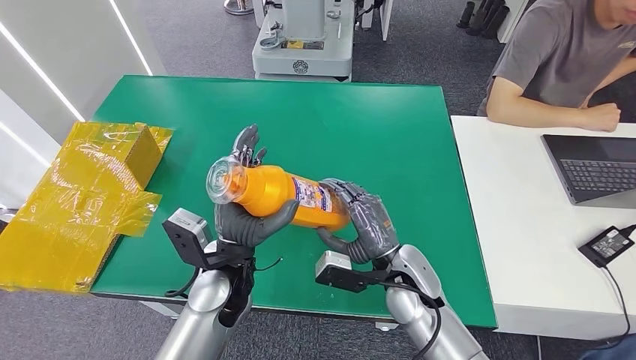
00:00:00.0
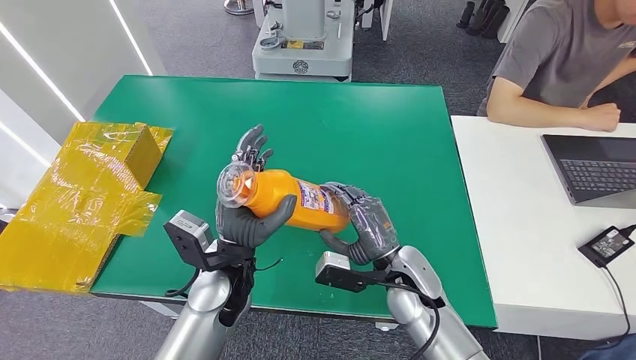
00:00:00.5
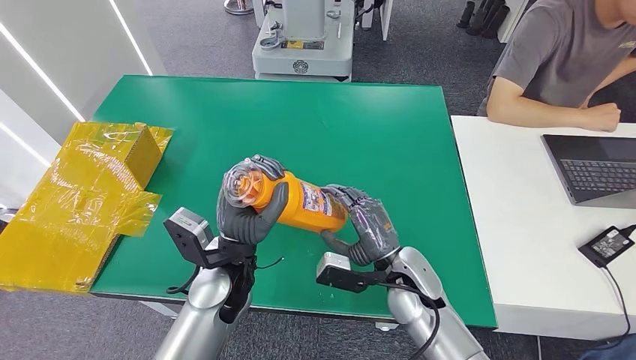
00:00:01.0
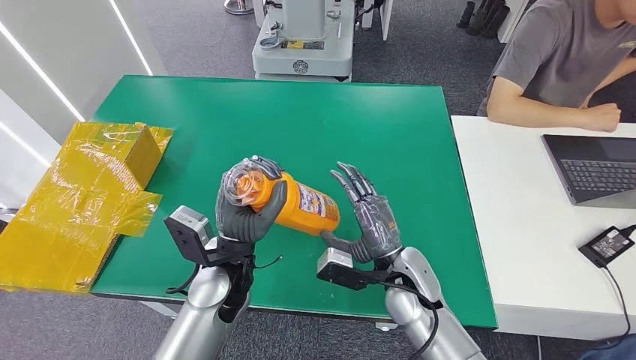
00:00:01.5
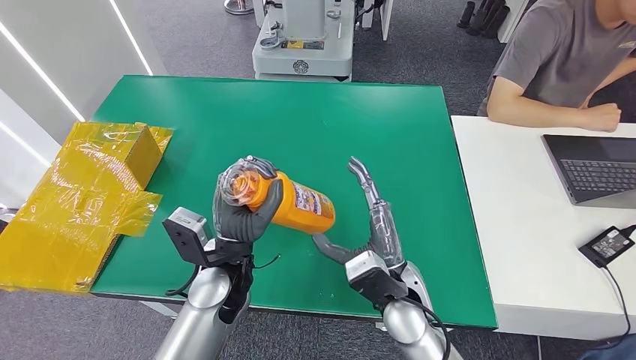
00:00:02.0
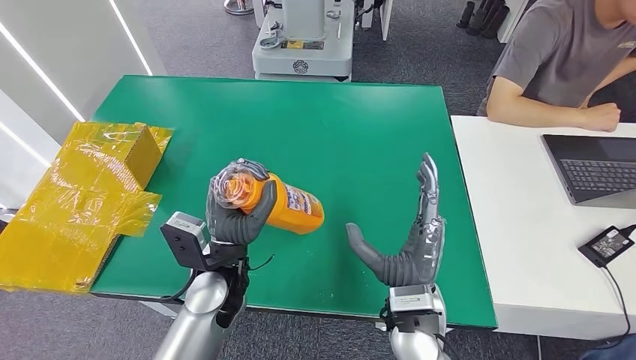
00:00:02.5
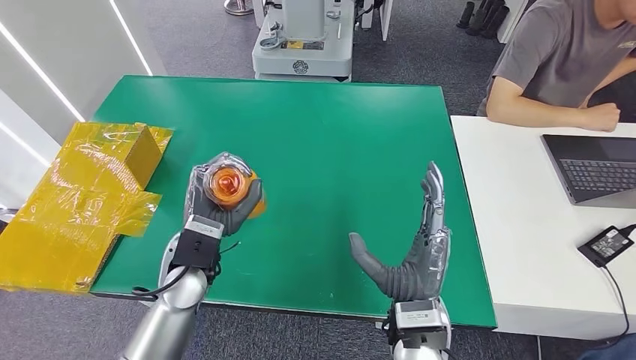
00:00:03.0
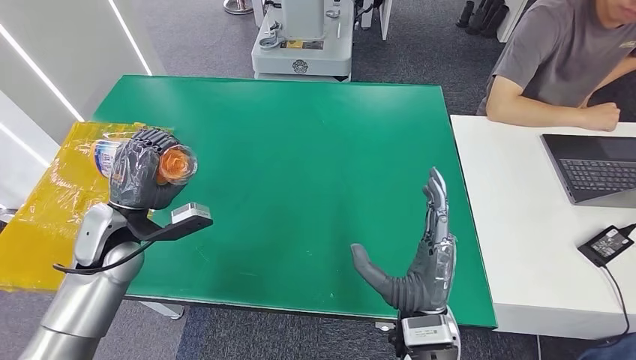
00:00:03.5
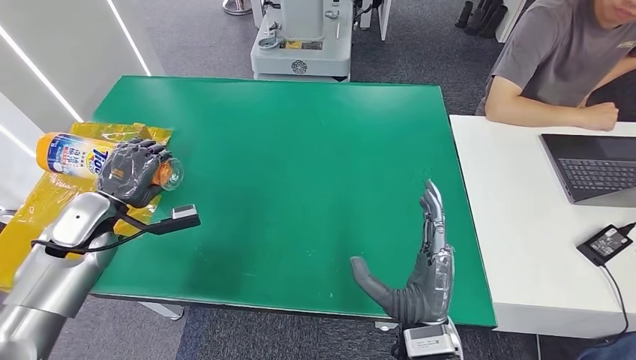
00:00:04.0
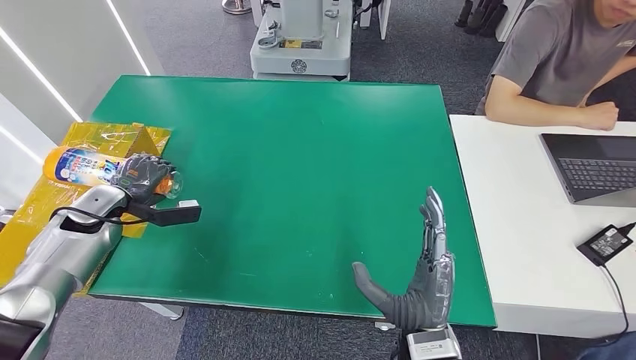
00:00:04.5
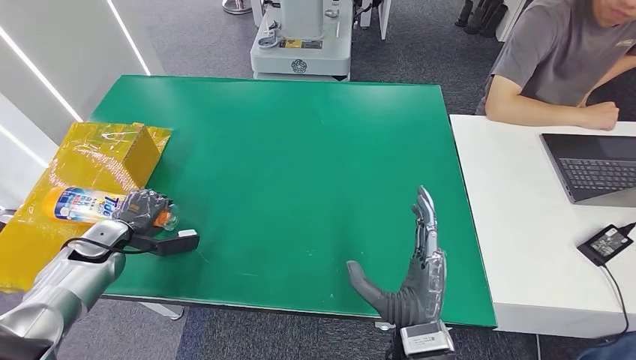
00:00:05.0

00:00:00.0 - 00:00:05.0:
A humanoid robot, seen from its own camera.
Step, 00:00:01.0 - 00:00:05.0: Turn the bottle to the front side.
00:00:00.0 - 00:00:02.5: The right hand shifts approximately 5 cm backward.
00:00:02.5 - 00:00:05.0: The left hand travels to the left by approximately 30 cm, while the right hand moves backward, approximately 5 cm.
